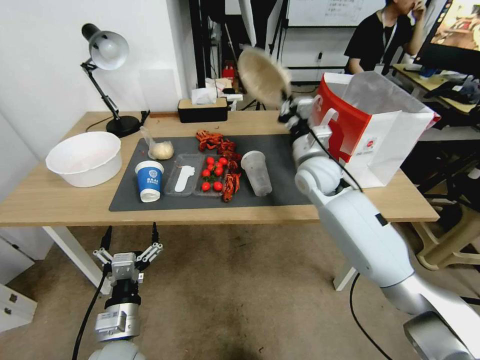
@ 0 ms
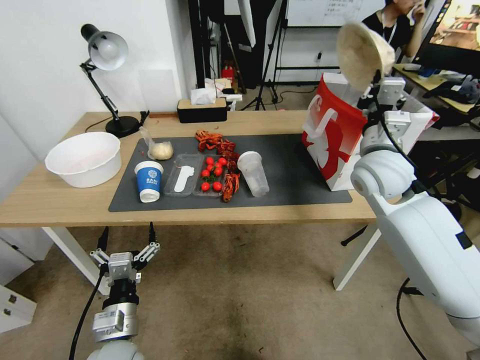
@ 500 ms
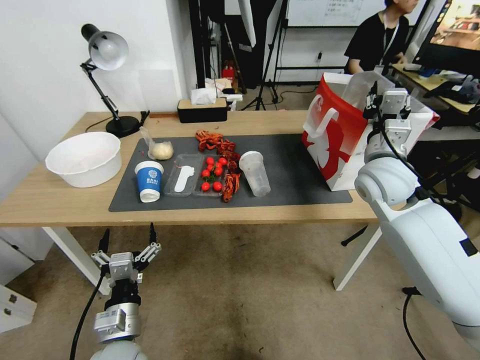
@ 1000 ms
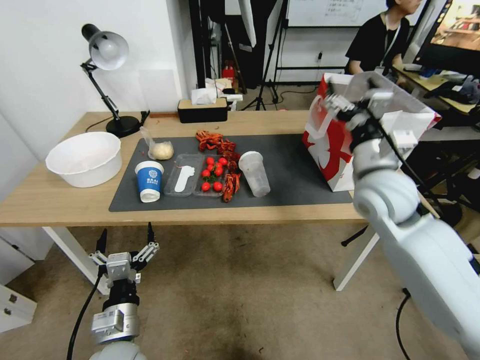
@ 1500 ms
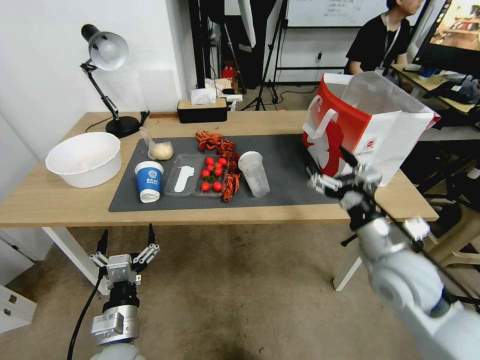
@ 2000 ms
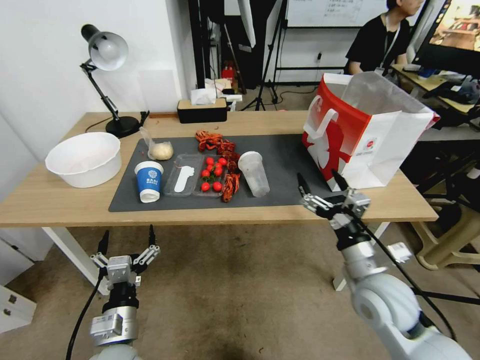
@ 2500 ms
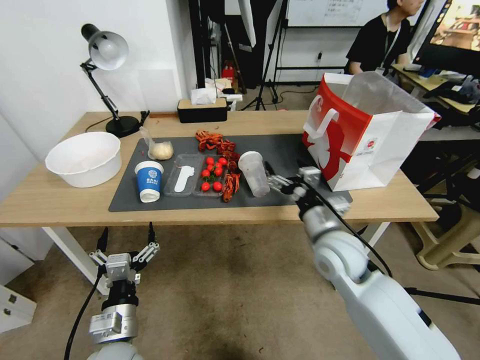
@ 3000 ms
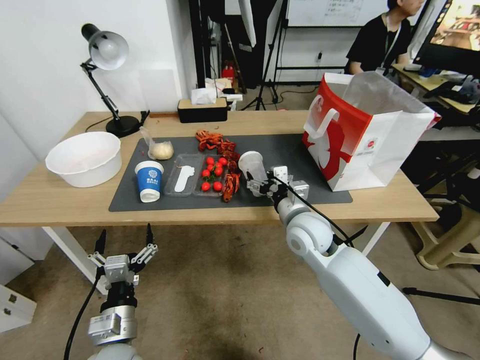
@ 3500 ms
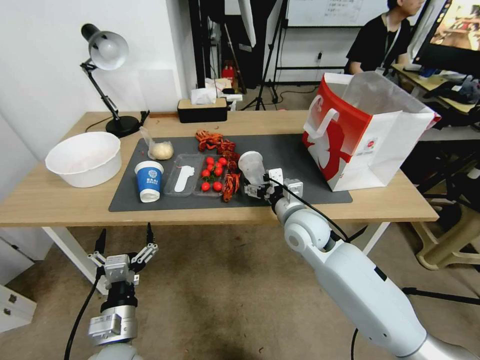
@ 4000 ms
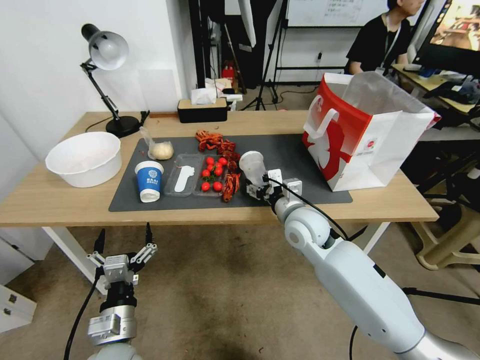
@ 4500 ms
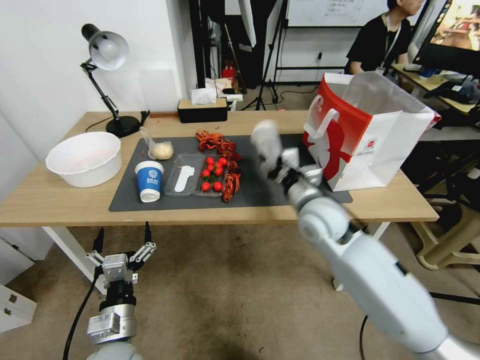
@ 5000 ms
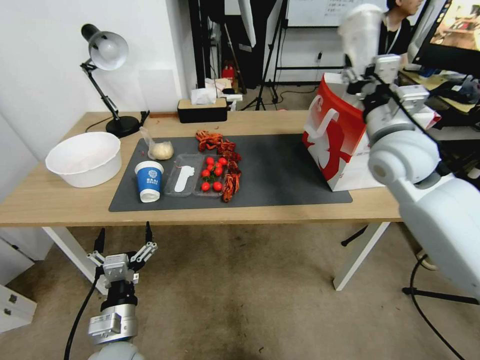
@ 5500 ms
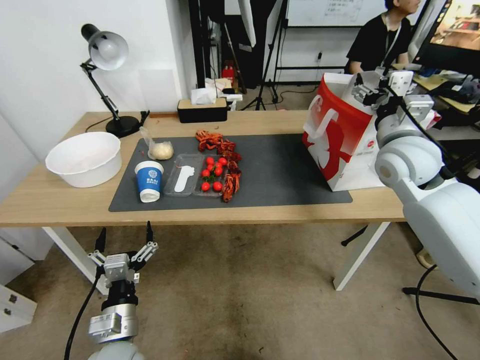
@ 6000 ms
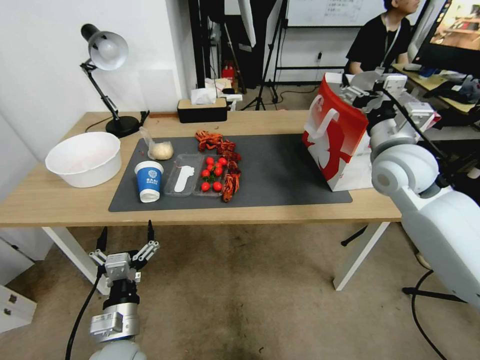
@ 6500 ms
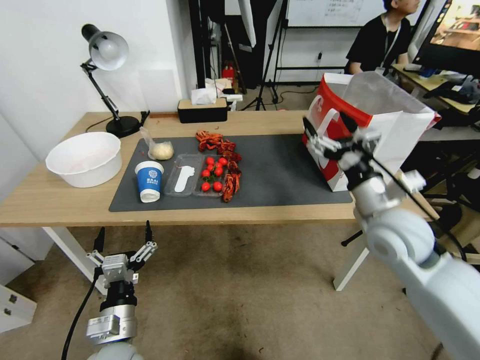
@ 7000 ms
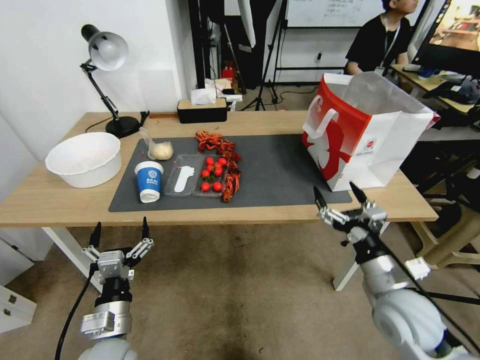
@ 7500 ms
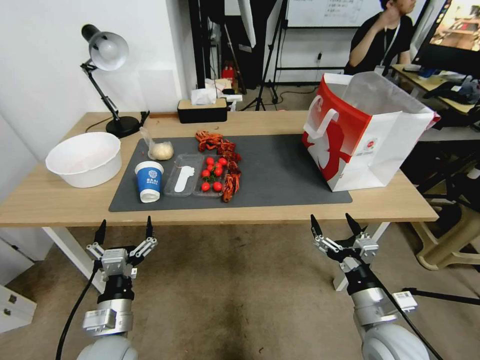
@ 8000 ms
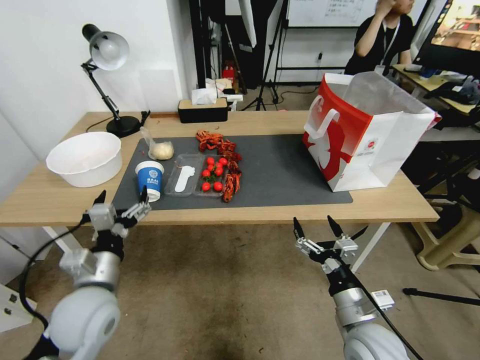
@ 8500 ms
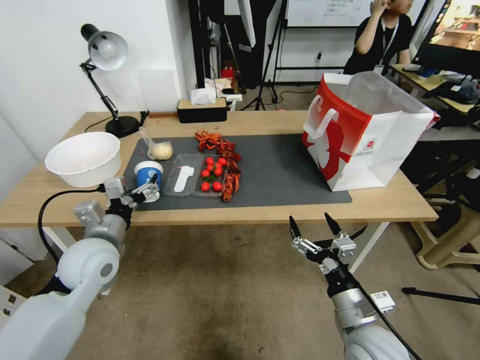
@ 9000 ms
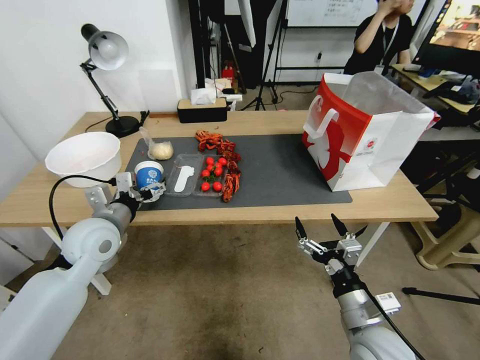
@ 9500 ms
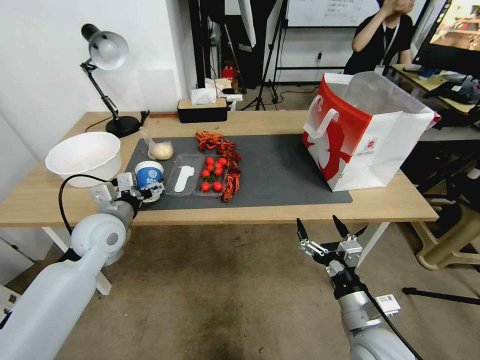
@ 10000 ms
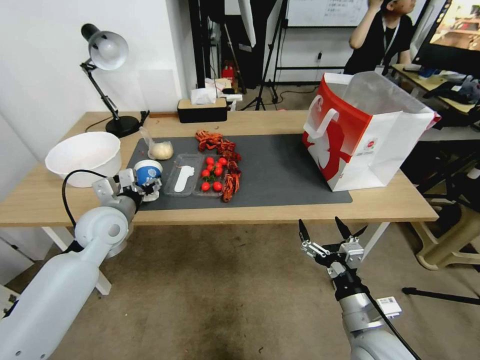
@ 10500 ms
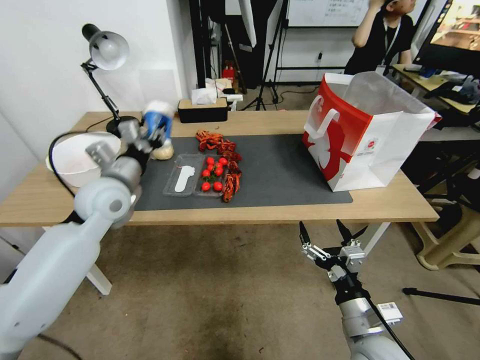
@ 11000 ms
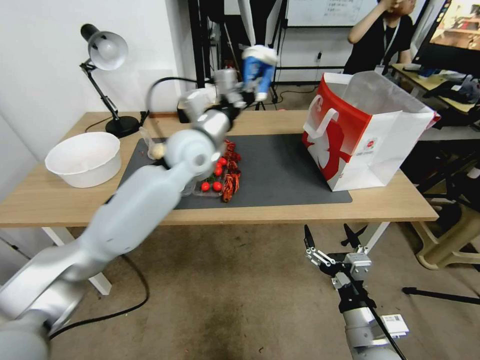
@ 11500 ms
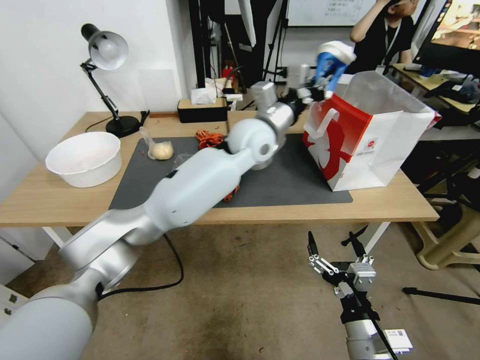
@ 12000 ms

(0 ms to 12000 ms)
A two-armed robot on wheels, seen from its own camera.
0 ms - 2000 ms: The right gripper travels backward and to the right by about 25 cm, and opens its fingers.
2000 ms - 4000 ms: The right gripper heads to the left and forward, covering approximately 20 cm.
4000 ms - 6000 ms: The right gripper goes roughly 25 cm upward and to the right, and closes and opens again.
6000 ms - 8000 ms: The right gripper travels backward and downward by some 35 cm.
8000 ms - 10000 ms: The left gripper goes some 20 cm forward and upward.
10000 ms - 12000 ms: The right gripper goes about 5 cm backward; the left gripper heads to the right, upward and forward, covering about 40 cm, and closes.

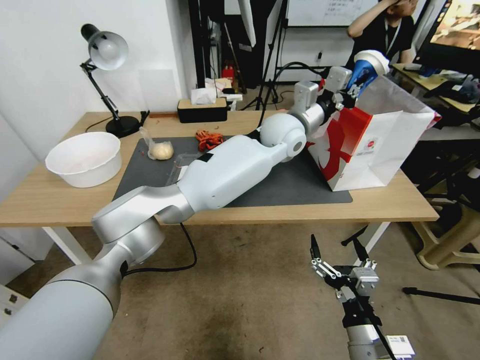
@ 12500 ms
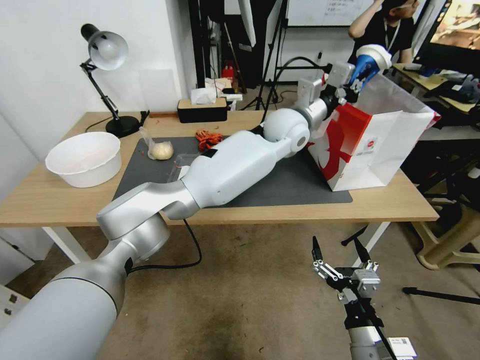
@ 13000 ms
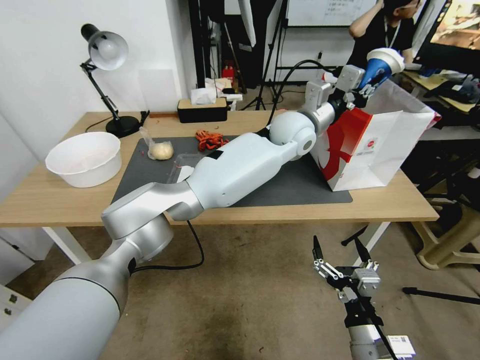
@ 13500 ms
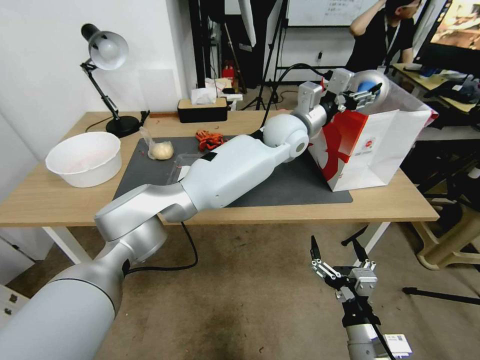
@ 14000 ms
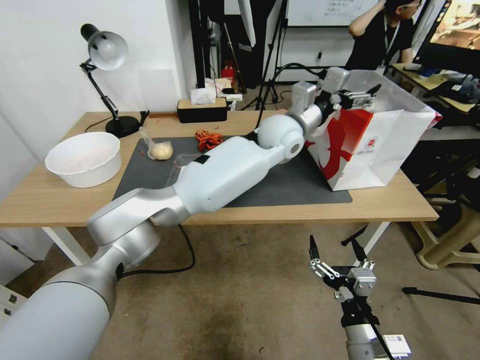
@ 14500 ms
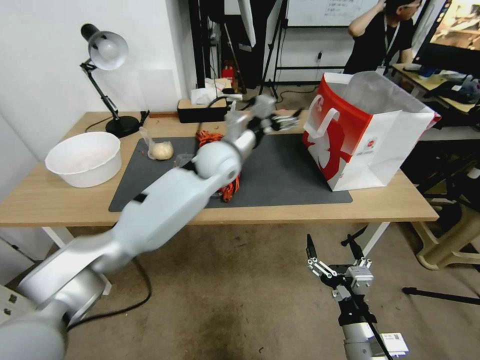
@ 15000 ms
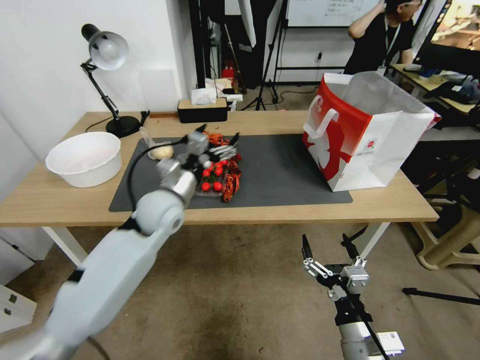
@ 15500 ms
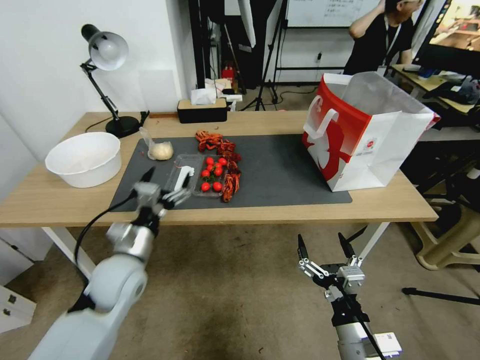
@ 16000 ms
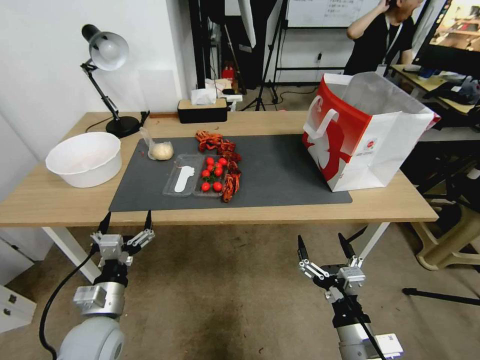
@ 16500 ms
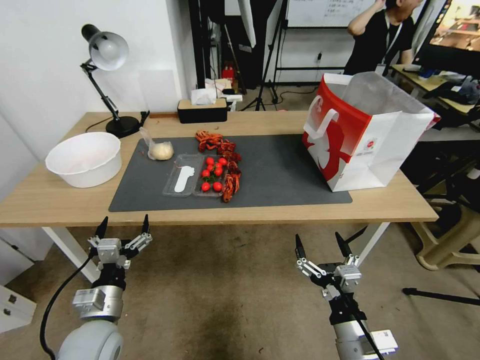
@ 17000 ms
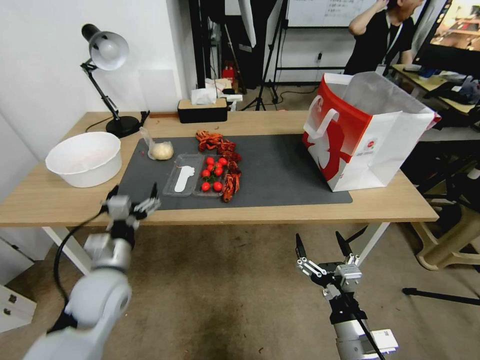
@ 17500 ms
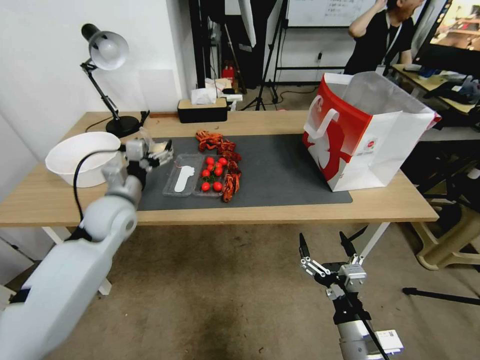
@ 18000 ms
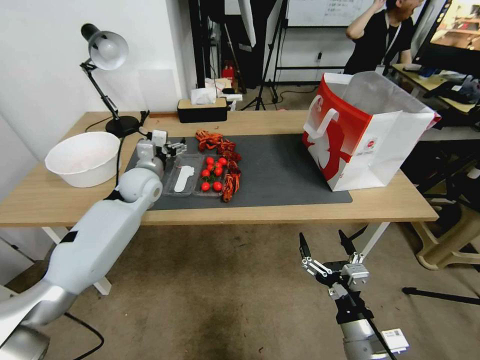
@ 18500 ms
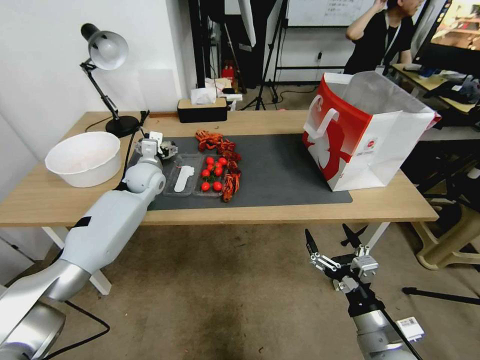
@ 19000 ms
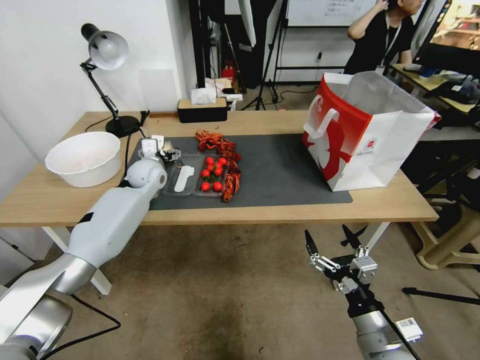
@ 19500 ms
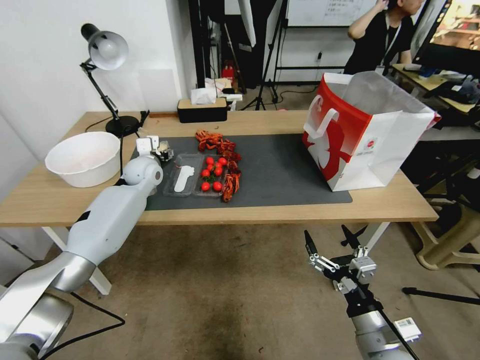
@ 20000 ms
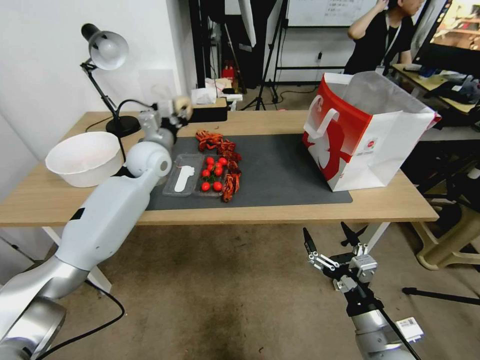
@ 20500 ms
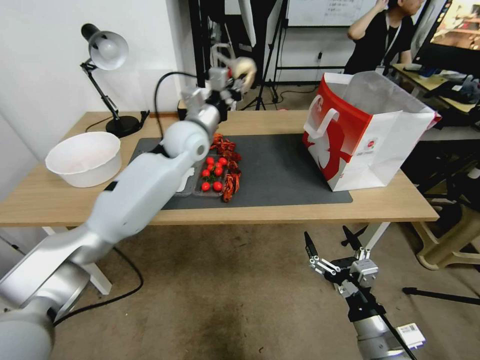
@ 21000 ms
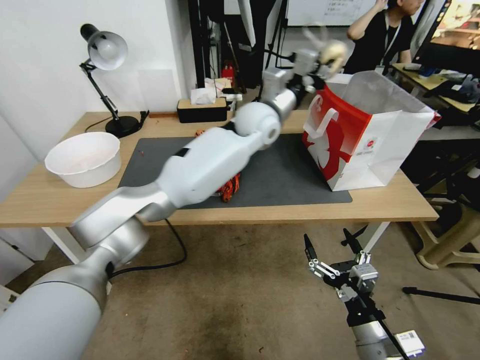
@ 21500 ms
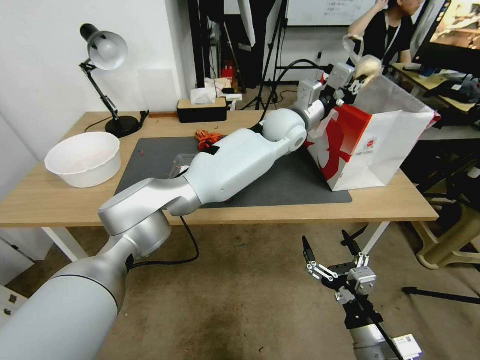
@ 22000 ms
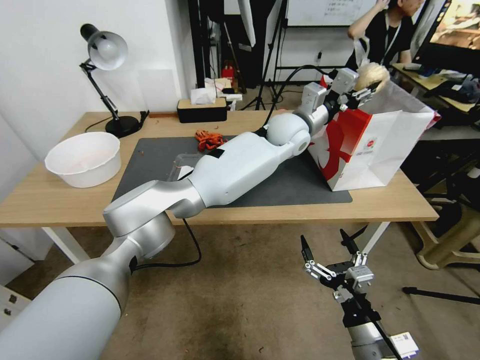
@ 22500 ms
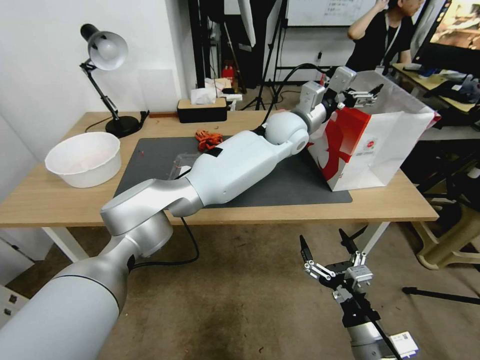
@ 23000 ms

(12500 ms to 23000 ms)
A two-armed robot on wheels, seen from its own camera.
12500 ms - 14500 ms: The left gripper opens.
14500 ms - 16500 ms: The left gripper goes approximately 50 cm to the left, backward and downward.
16500 ms - 19000 ms: The left gripper heads forward, covering some 35 cm.
19000 ms - 21000 ms: The left gripper shifts some 20 cm upward and to the right, and closes up.
21000 ms - 23000 ms: The left gripper travels to the right by roughly 25 cm, and opens its fingers.

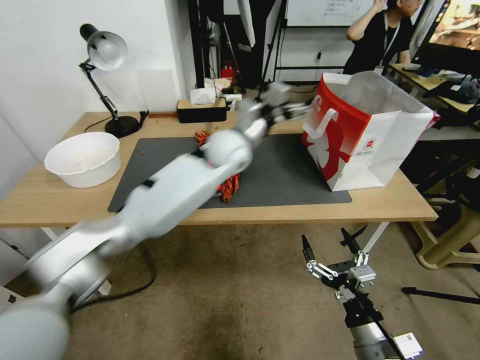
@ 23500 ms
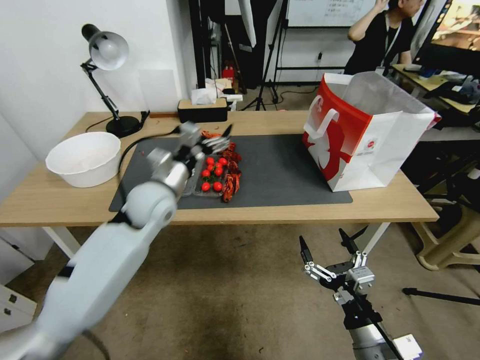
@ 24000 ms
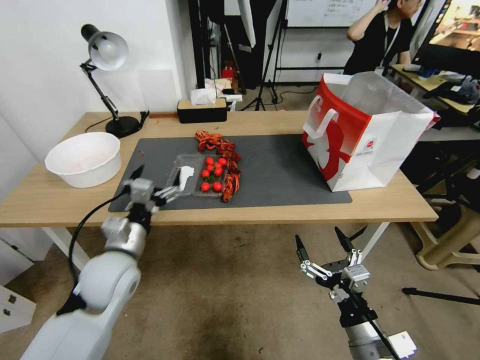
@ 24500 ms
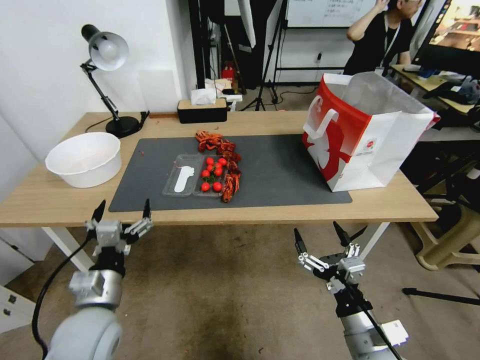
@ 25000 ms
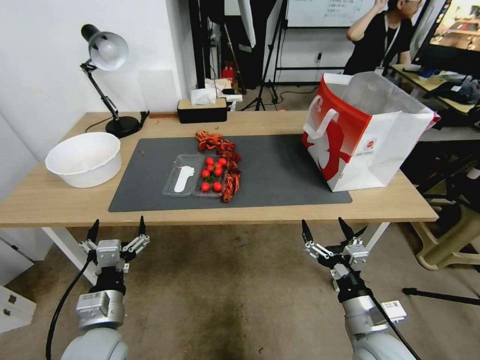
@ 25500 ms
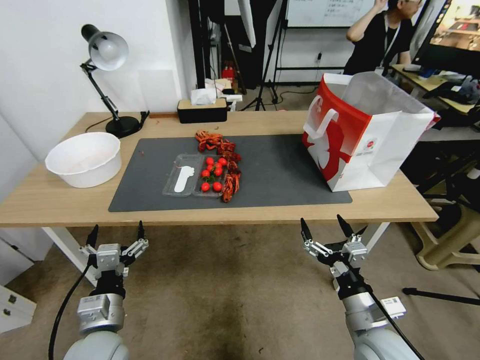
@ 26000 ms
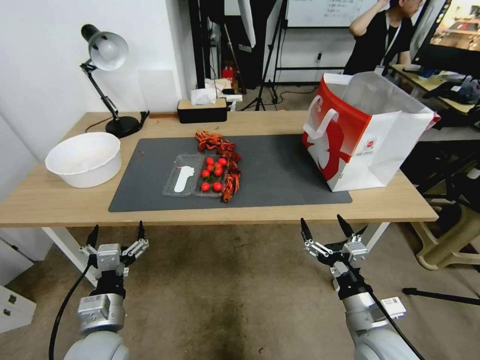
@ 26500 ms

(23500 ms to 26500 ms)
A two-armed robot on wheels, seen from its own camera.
23500 ms - 25000 ms: The left gripper travels to the left, backward and downward by some 50 cm.
25000 ms - 26500 ms: The left gripper ends up some 5 cm from where it was.
